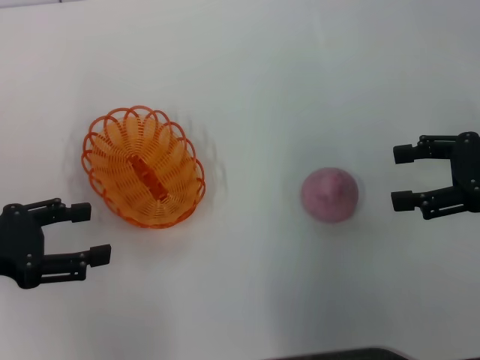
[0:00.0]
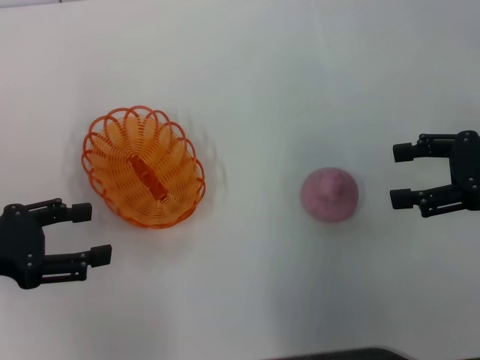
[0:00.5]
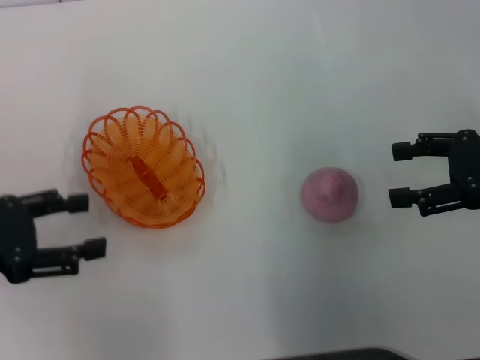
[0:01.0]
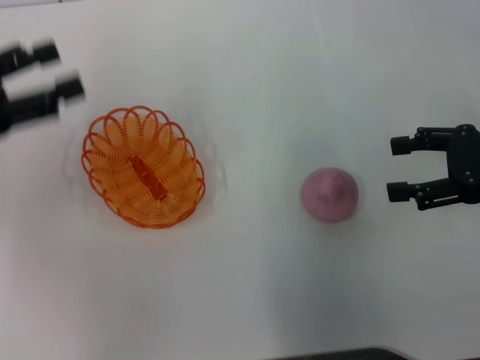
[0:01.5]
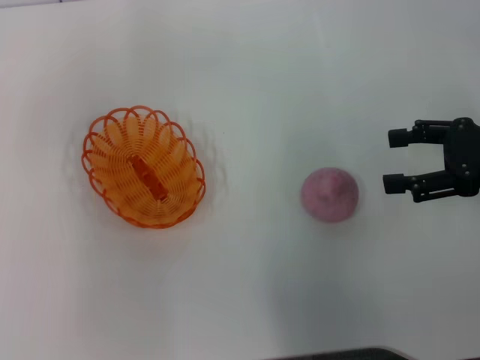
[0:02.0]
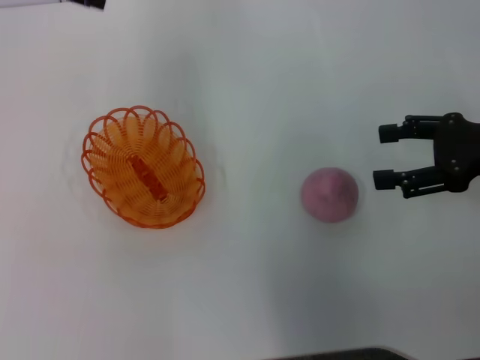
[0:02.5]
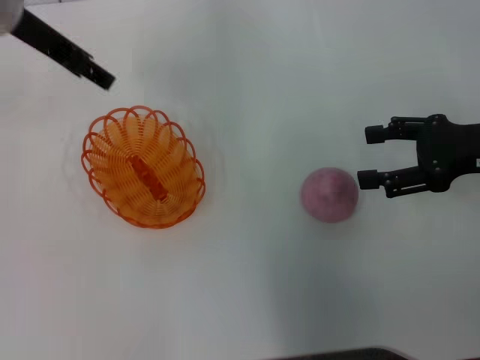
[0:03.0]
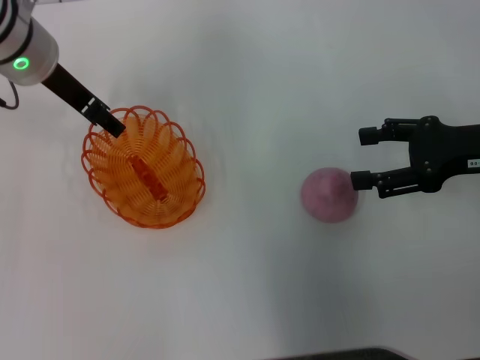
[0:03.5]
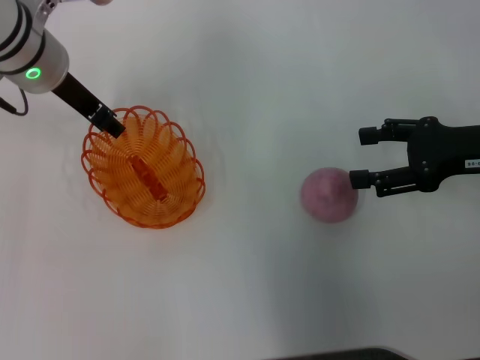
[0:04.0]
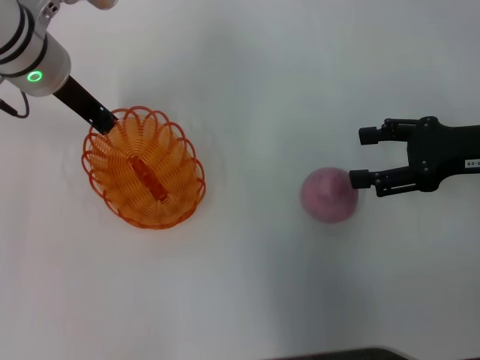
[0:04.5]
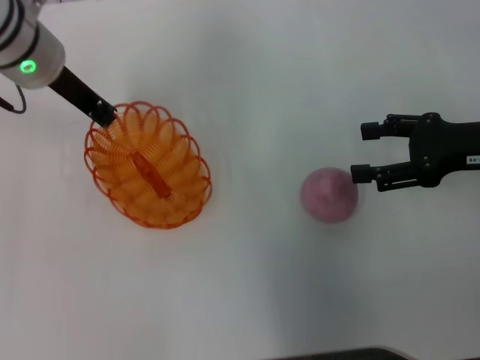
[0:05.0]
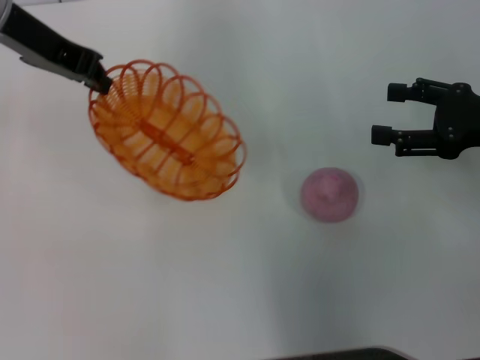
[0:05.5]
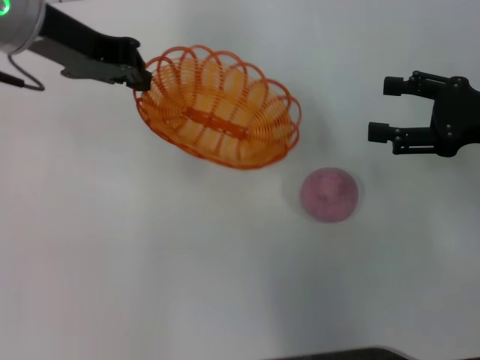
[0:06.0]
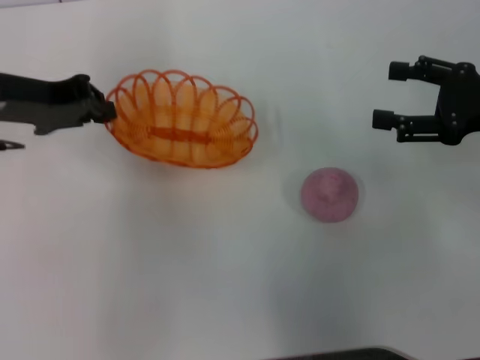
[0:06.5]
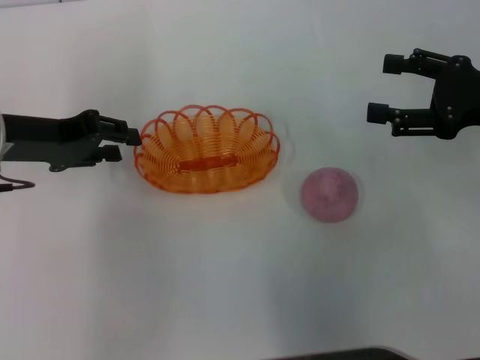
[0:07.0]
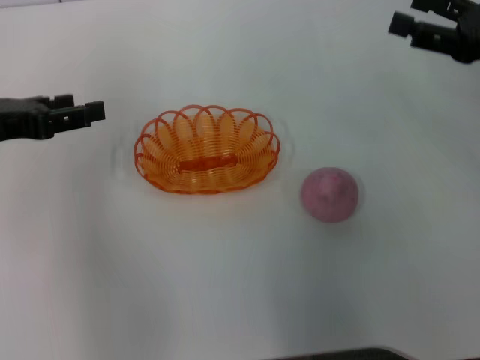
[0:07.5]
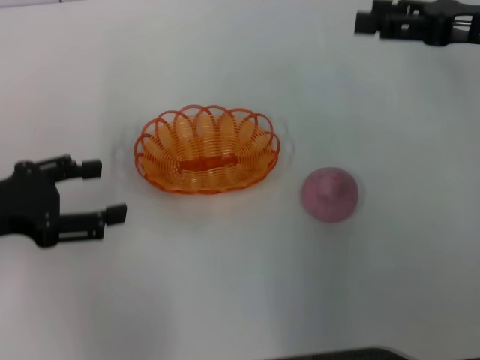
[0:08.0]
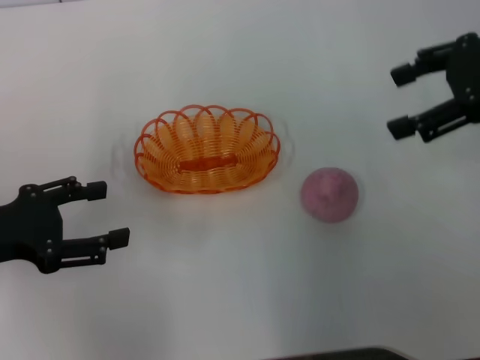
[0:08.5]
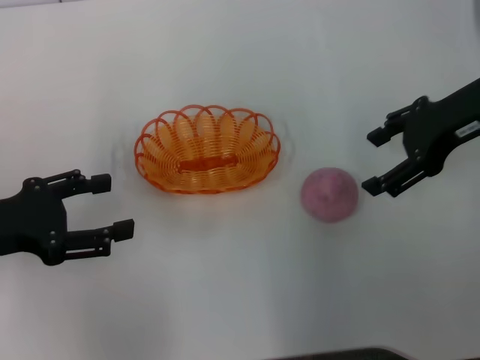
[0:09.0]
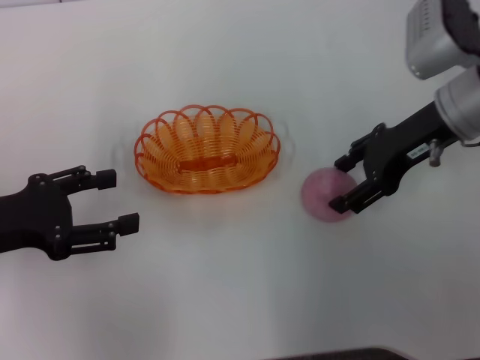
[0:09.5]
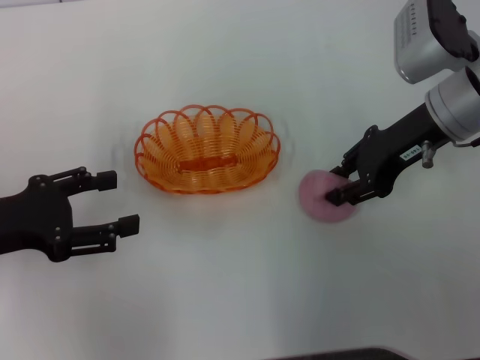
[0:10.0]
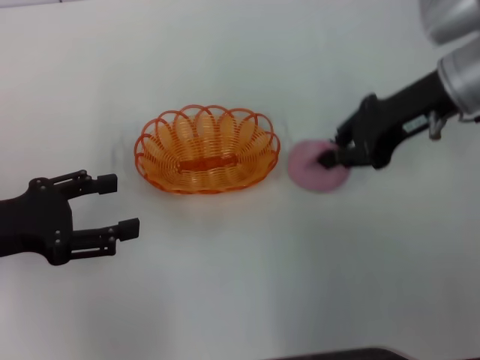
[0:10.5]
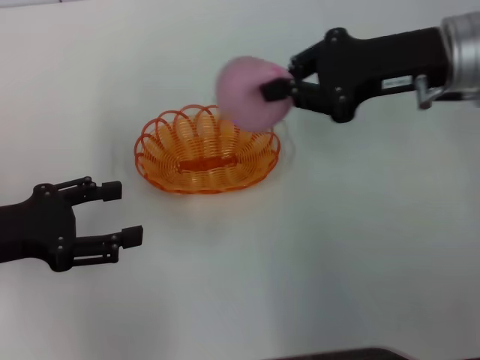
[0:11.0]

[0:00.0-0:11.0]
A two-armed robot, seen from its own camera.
Step, 0:00.0 to 0:05.0: Pick up the basket with the left gripper.
Step, 0:05.5 to 0:07.0: Place the basket in the center of view with the left gripper.
Step, 0:07.5 to 0:10.5: Pick up the peach with the right gripper.
0:00.0 to 0:02.0: The left gripper shifts roughly 20 cm upward and forward.
0:02.0 to 0:03.5: The left gripper heads to the right, downward and forward, covering roughly 15 cm.
0:03.5 to 0:05.5: The left gripper travels upward by about 5 cm, and closes up.
0:05.5 to 0:07.5: The left gripper travels to the left, downward and backward by approximately 15 cm, and opens its fingers.
0:07.5 to 0:09.0: The left gripper shifts some 5 cm backward. The right gripper heads to the left, covering some 5 cm.
0:09.0 to 0:11.0: The right gripper closes.

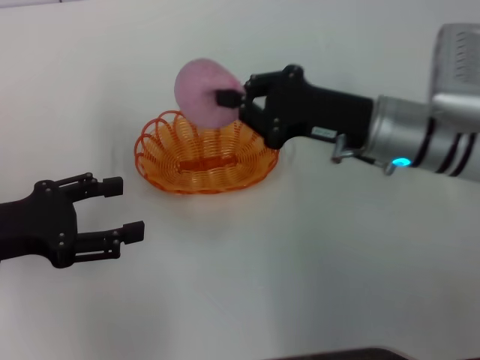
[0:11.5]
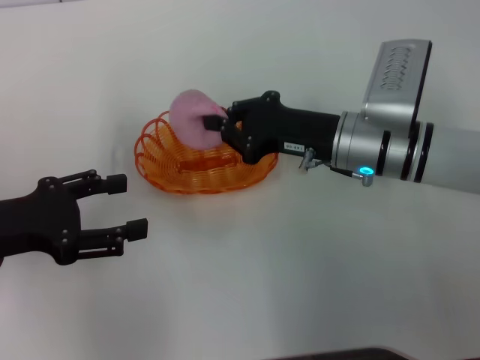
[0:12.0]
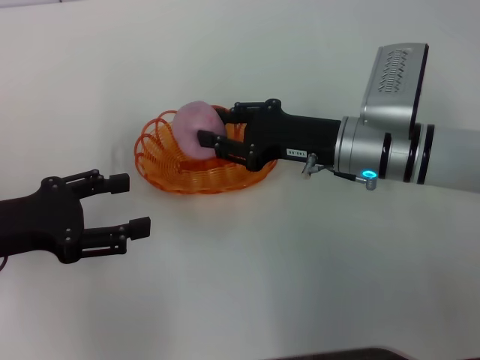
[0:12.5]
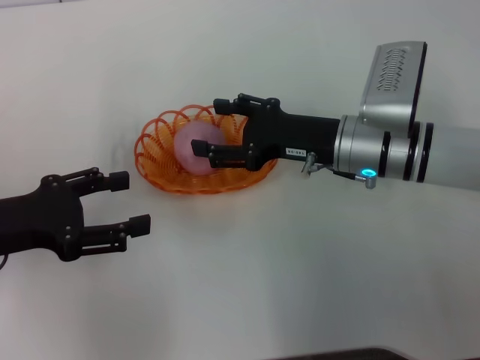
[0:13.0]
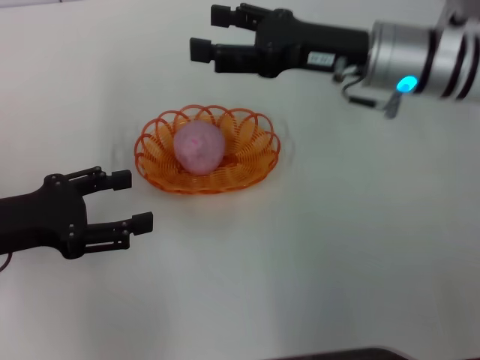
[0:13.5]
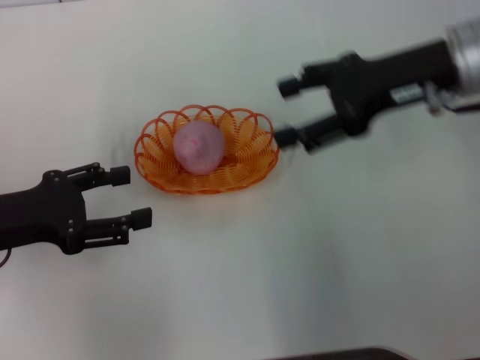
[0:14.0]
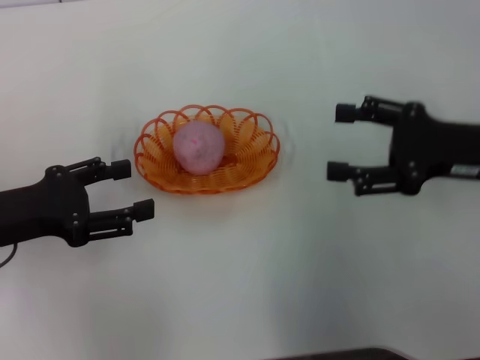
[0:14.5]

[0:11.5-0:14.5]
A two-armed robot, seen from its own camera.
Step, 0:11.5 to 0:13.0: Place the peach into the basket with the right gripper.
0:11.5 to 0:13.0: The right gripper opens up.
0:13.0 to 0:14.5: The right gripper is displaced to the right, backward and upward by roughly 15 cm.
